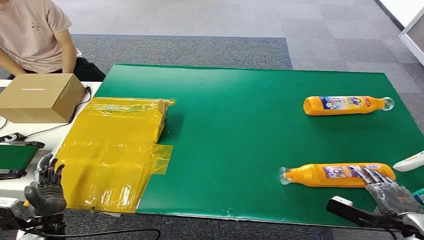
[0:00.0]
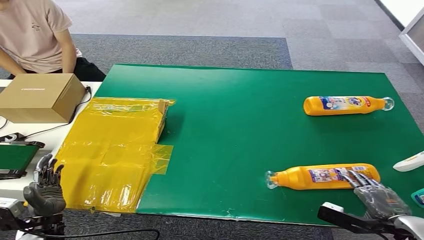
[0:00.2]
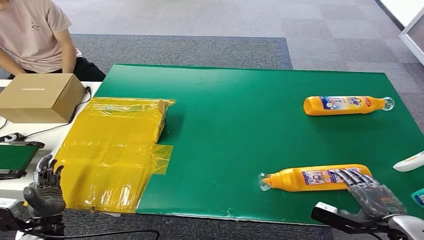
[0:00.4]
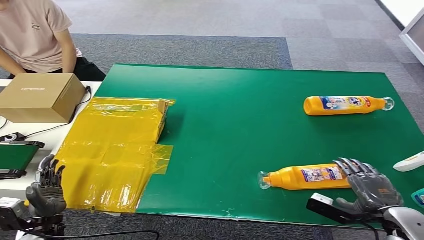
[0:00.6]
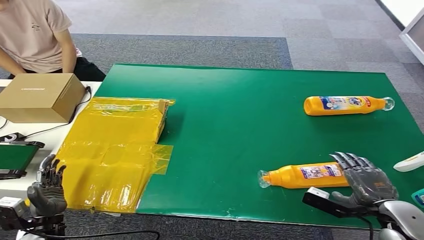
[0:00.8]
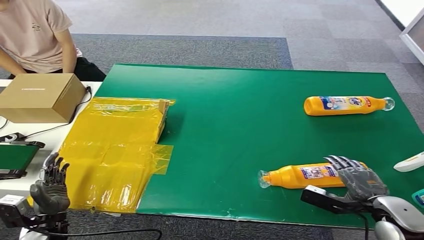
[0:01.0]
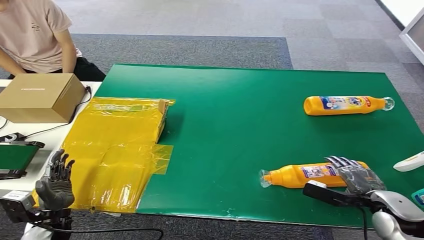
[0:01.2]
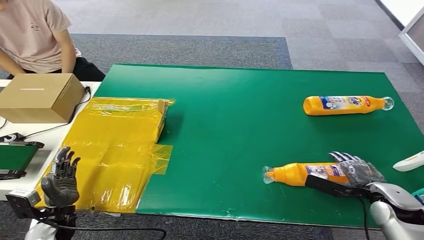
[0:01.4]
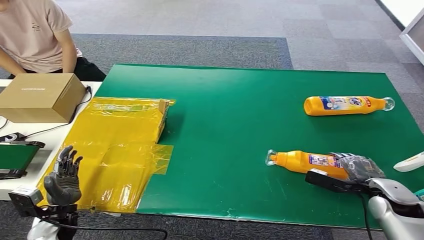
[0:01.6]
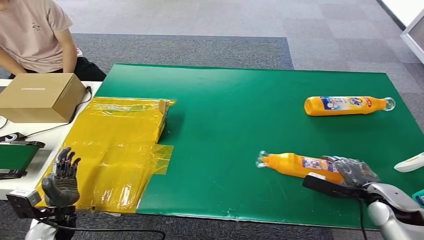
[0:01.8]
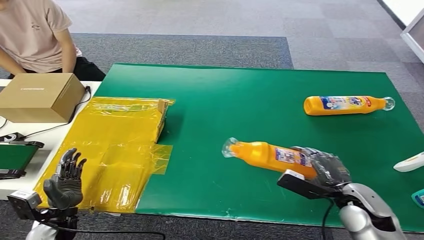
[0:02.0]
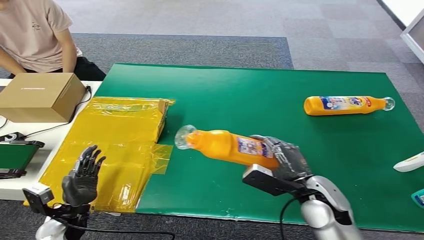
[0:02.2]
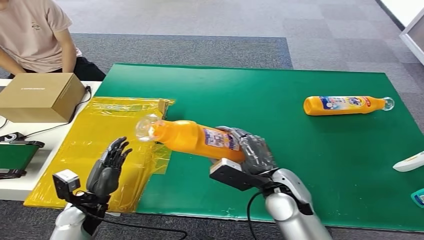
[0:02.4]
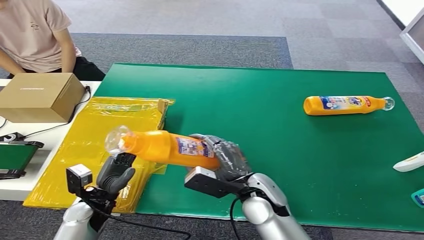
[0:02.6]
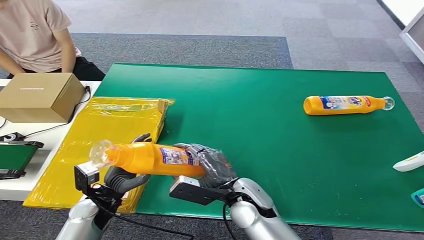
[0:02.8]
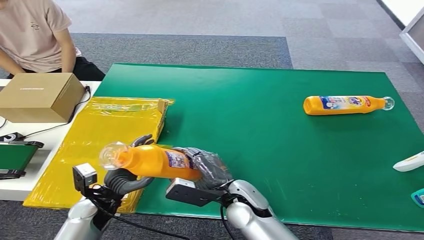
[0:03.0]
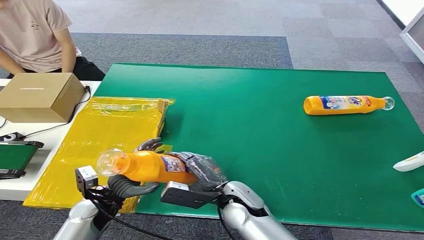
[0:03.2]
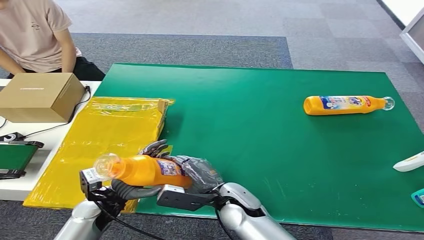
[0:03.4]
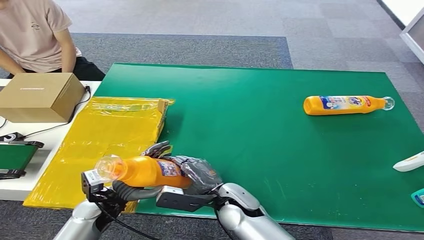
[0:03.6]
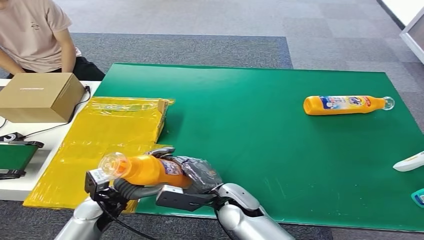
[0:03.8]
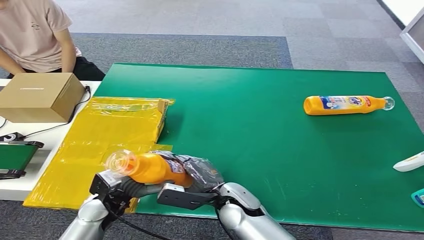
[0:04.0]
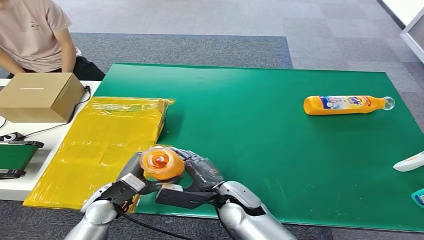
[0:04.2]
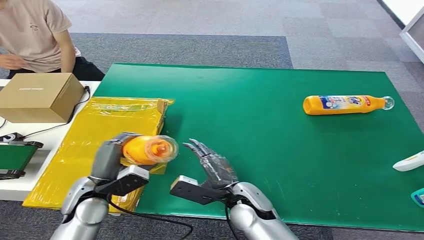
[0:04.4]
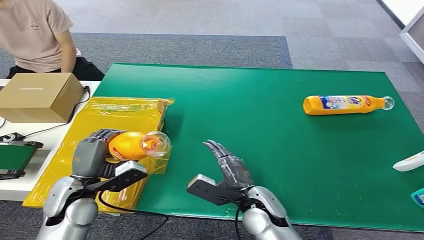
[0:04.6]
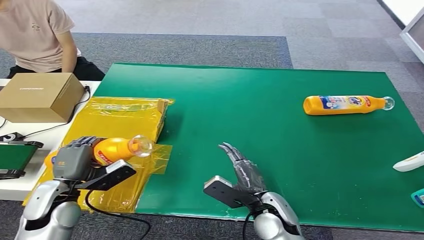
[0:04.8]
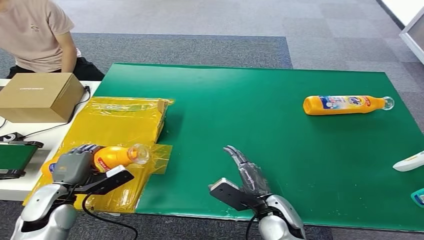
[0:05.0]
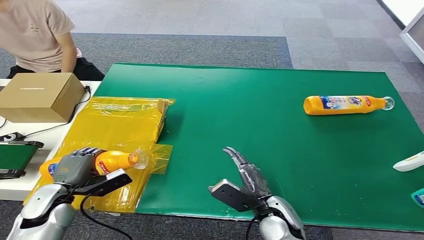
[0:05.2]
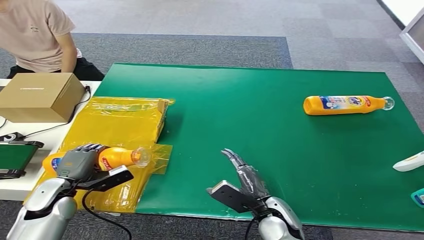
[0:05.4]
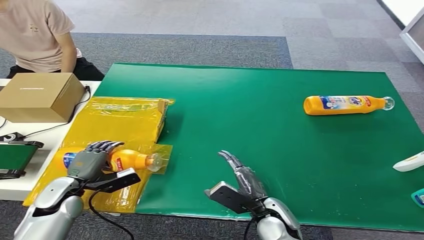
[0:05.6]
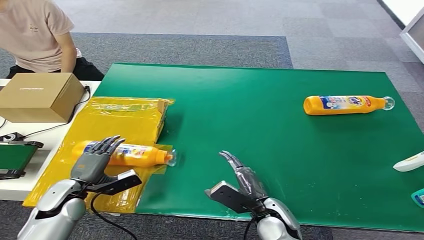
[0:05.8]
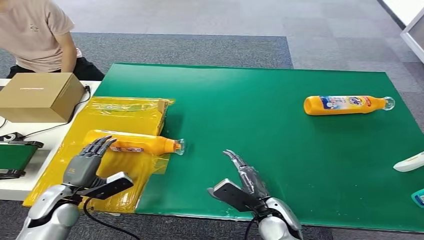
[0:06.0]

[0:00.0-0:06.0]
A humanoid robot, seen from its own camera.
Step, 0:00.0 to 0:02.2: Pick up the bottle from the table.
Step, 0:02.4 to 0:05.8: Turn the bottle to the front side.
0:03.0 to 0:04.4: The left hand moves upward, approximately 5 cm.
0:04.4 to 0:06.0: The left hand moves to the left and downward, approximately 10 cm, while the right hand shifts about 5 cm to the right.
